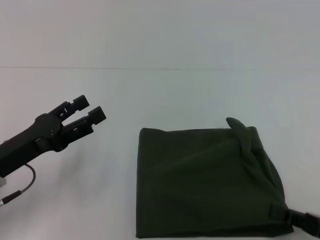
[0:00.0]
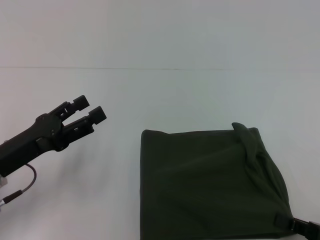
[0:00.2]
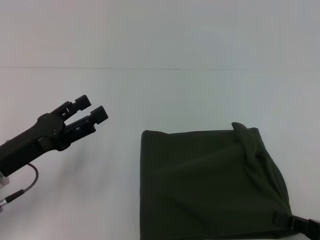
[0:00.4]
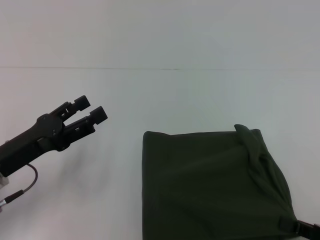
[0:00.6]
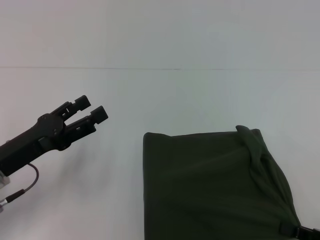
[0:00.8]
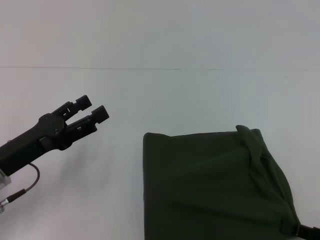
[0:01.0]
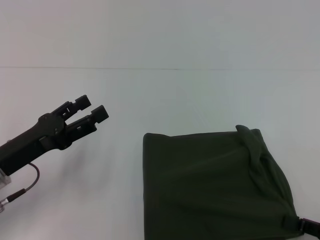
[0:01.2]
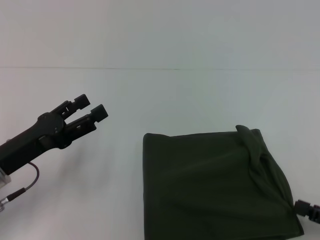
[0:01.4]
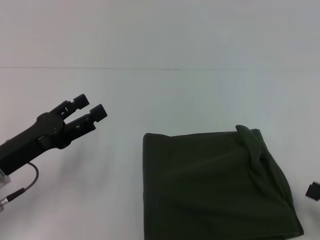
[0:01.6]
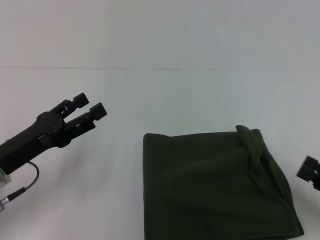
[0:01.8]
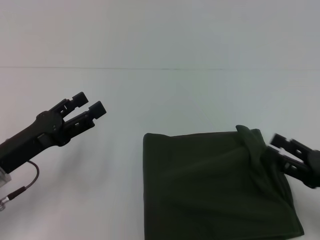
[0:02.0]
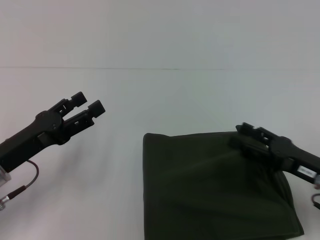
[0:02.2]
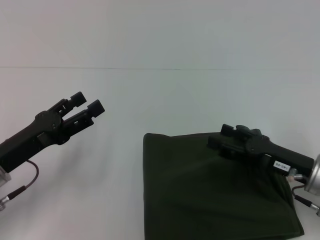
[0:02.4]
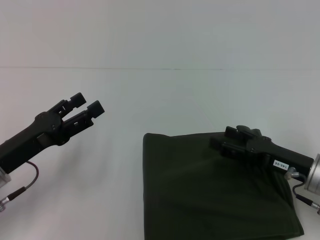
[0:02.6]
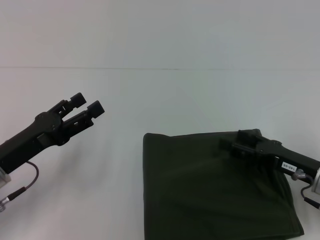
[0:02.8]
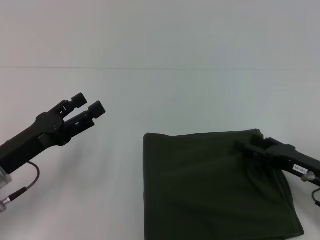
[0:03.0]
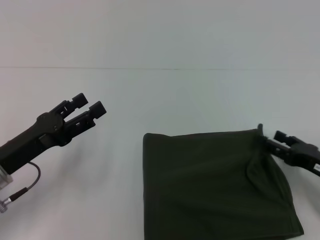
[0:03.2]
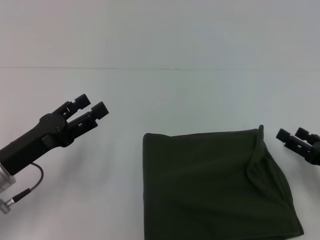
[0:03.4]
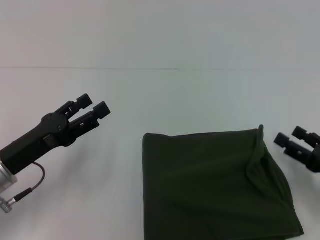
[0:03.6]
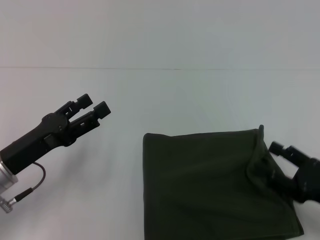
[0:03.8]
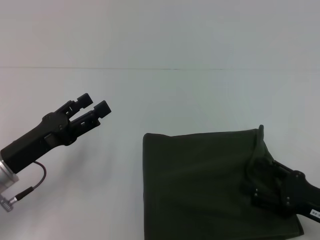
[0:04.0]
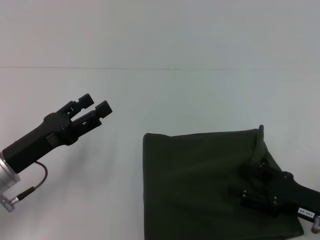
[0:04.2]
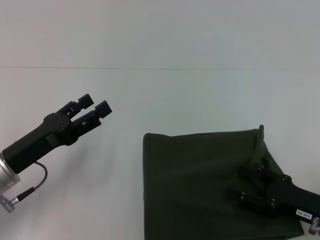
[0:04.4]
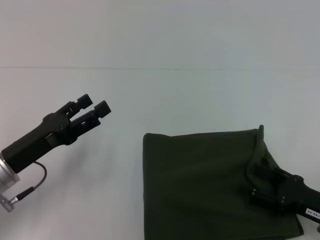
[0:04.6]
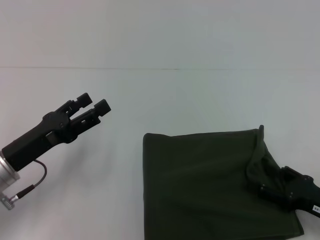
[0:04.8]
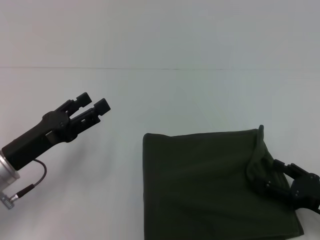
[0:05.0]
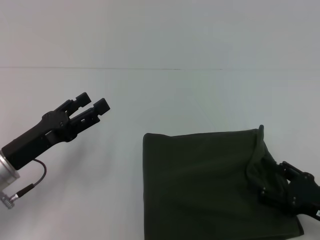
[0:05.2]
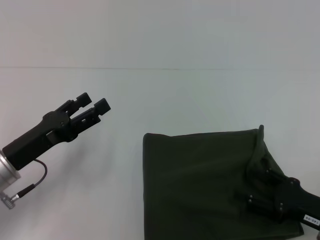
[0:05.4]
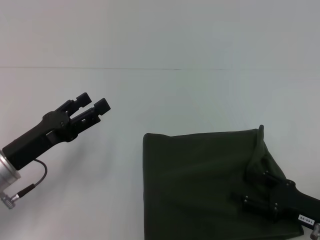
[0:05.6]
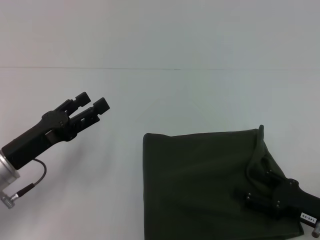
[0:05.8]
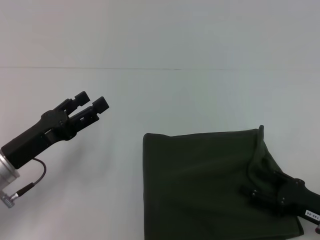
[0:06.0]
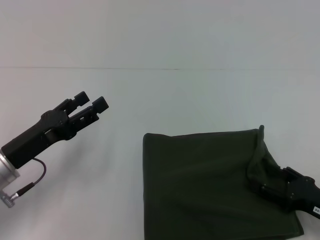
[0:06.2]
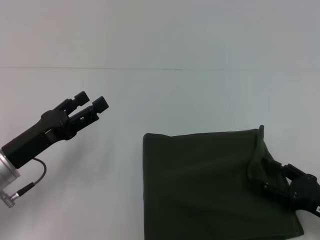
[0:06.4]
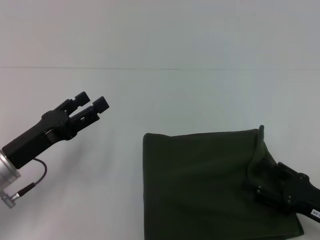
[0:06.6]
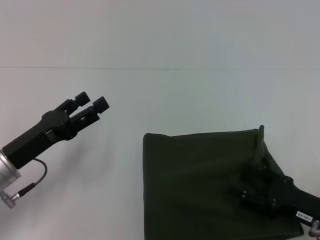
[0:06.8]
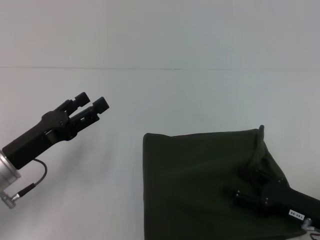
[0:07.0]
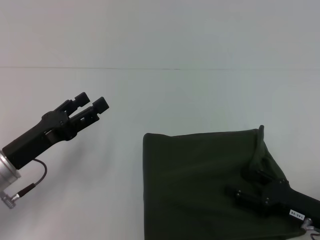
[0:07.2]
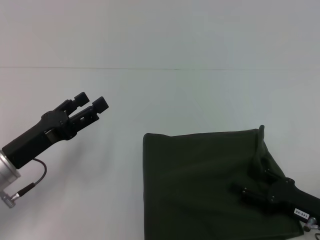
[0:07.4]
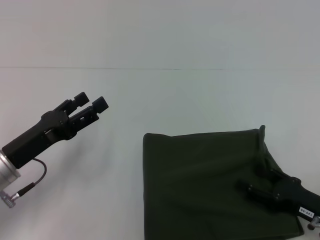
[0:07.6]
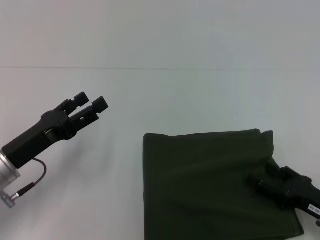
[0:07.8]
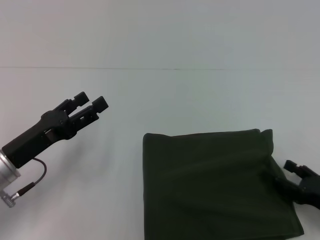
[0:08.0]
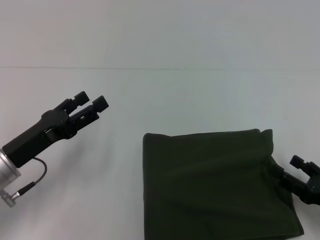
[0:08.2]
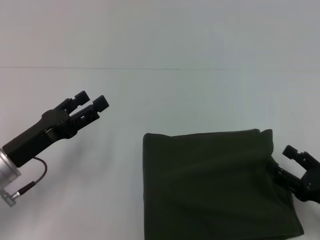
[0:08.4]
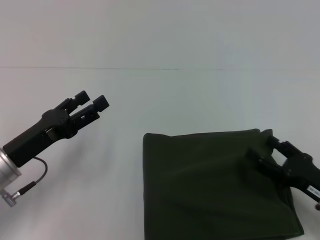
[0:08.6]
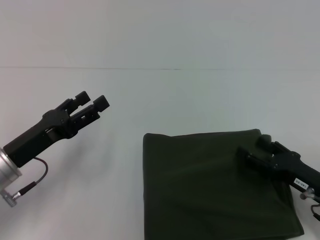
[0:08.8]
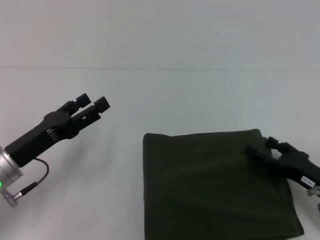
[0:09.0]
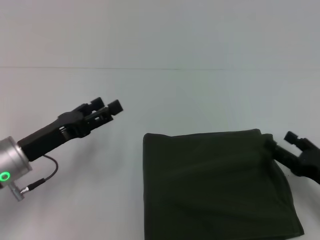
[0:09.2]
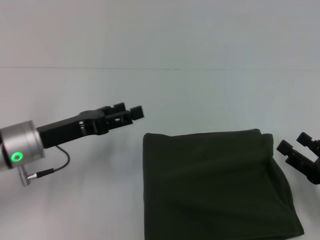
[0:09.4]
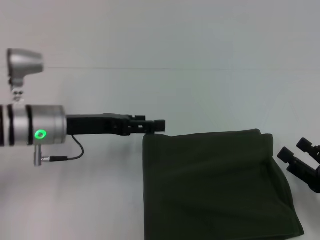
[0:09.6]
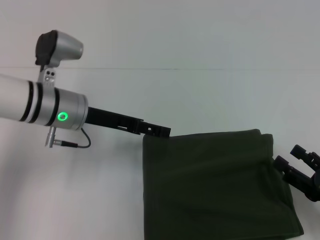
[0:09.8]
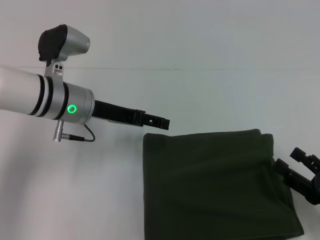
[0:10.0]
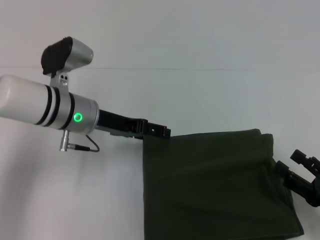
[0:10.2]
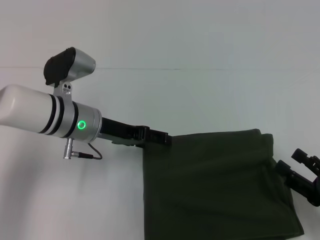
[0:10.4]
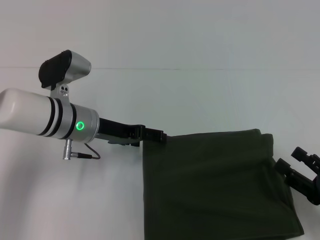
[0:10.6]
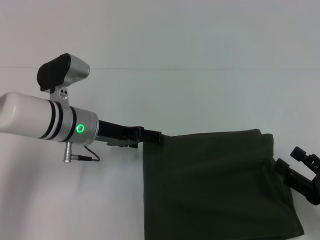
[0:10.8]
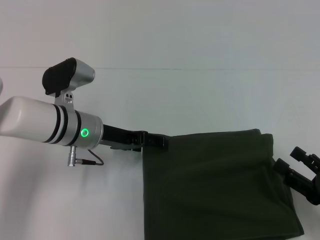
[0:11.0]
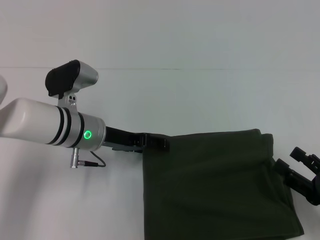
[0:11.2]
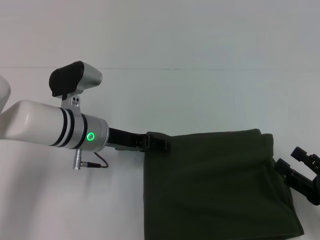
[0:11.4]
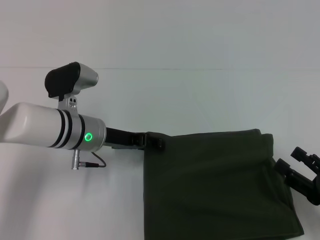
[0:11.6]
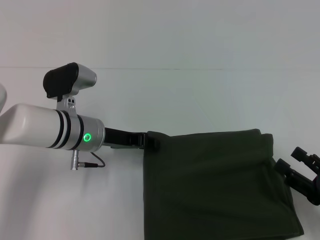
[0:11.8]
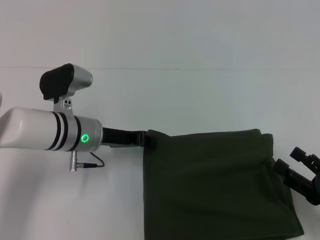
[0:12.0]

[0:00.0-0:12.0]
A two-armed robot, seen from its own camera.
0:00.0 to 0:01.6: The right gripper opens its fingers.
0:01.6 to 0:03.0: The right gripper is displaced forward and to the left by approximately 15 cm, and opens.
0:03.0 to 0:04.4: The right gripper heads backward, covering about 5 cm.
0:04.4 to 0:07.6: There are only small adjustments of the grippers.
0:07.6 to 0:09.0: There are only small adjustments of the grippers.
0:09.0 to 0:10.4: The left gripper goes roughly 15 cm forward and to the right. Meanwhile the right gripper heads backward, covering about 5 cm.
0:10.4 to 0:12.0: The left gripper closes its fingers.

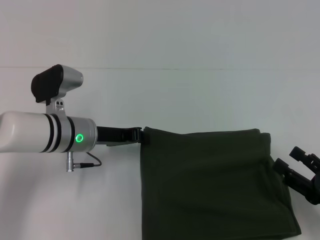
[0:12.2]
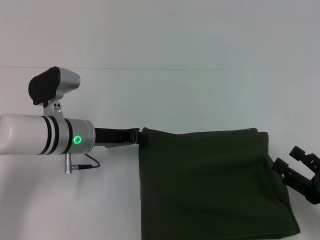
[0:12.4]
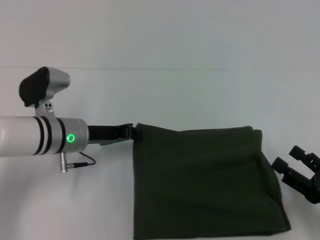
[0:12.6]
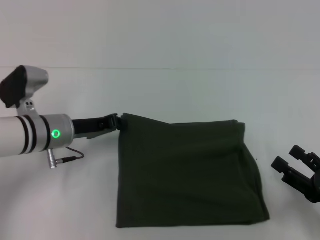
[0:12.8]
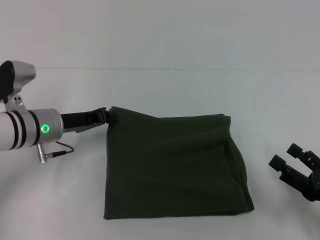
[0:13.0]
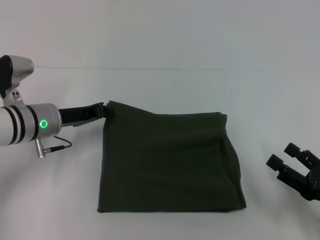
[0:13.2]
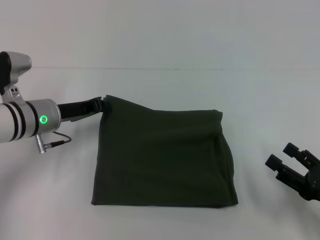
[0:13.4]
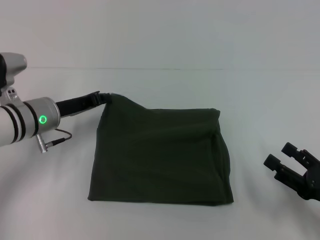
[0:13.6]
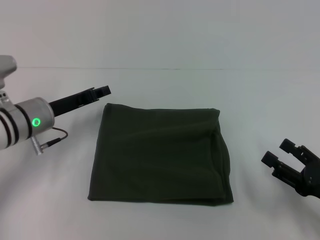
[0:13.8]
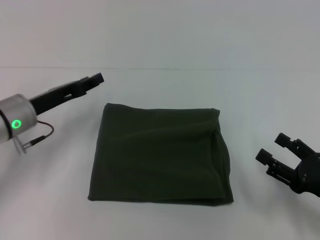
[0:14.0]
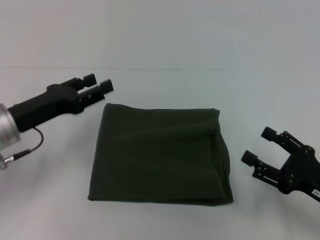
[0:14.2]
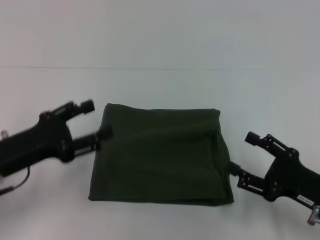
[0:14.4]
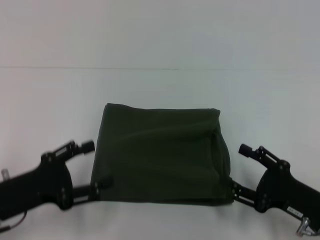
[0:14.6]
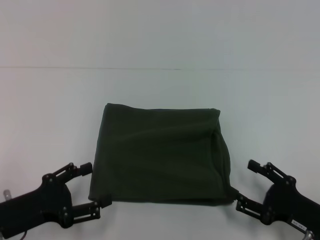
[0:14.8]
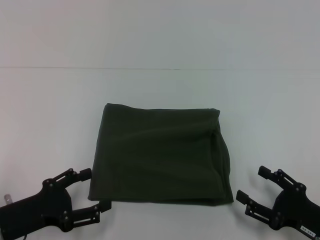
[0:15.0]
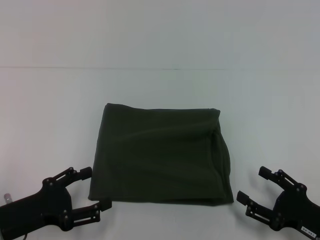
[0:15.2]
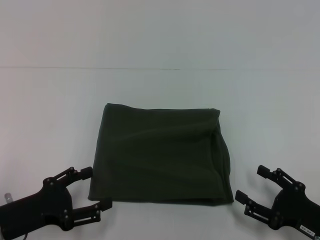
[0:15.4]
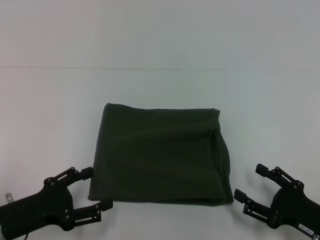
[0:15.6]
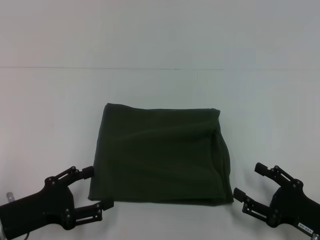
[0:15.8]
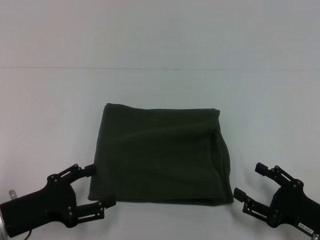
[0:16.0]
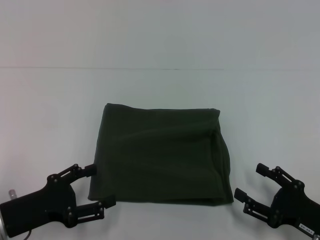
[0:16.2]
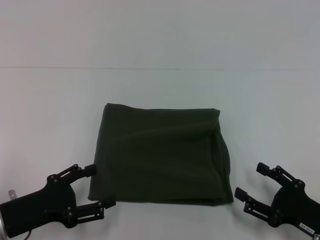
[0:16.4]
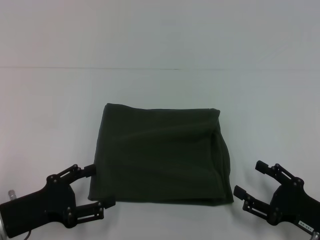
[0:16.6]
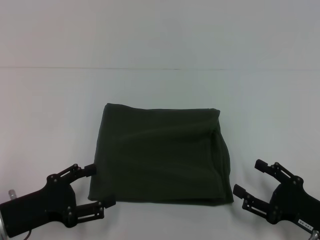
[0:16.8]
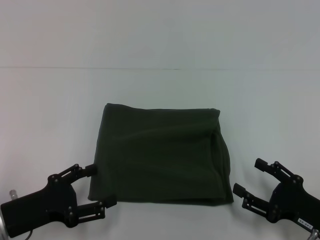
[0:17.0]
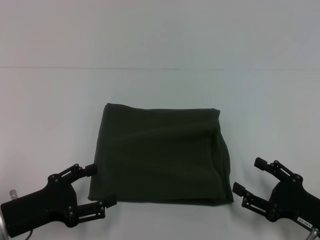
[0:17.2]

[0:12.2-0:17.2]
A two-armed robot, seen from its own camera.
0:12.2 to 0:13.8: The left gripper moves to the left, approximately 5 cm.
0:13.8 to 0:15.6: The left gripper shifts about 15 cm backward, and opens.
0:15.6 to 0:17.2: The two grippers keep their place.
